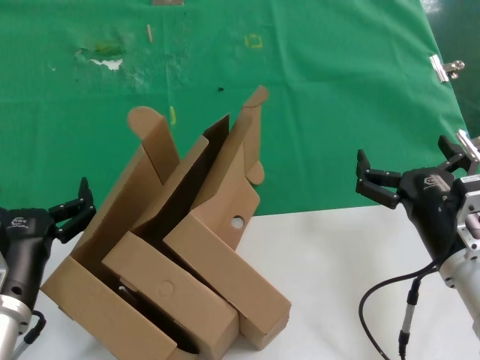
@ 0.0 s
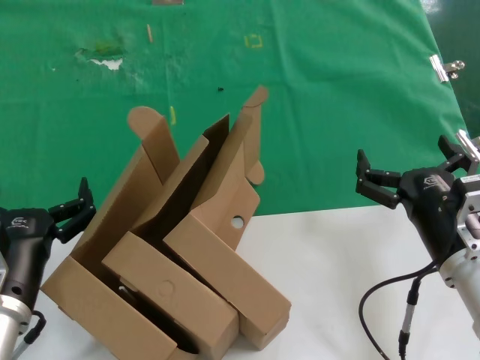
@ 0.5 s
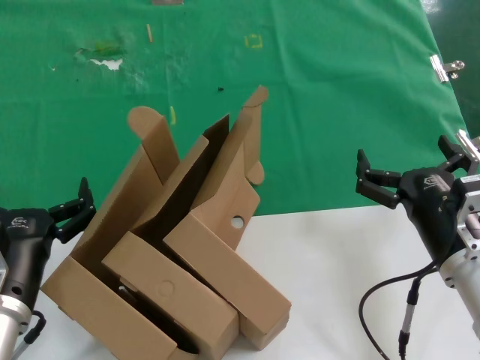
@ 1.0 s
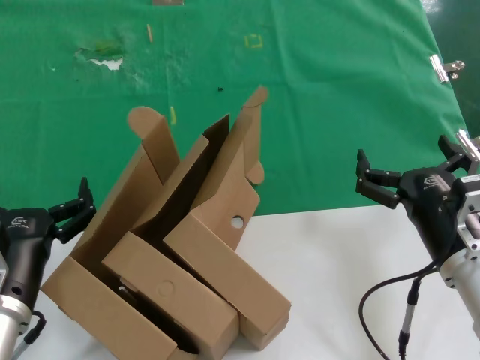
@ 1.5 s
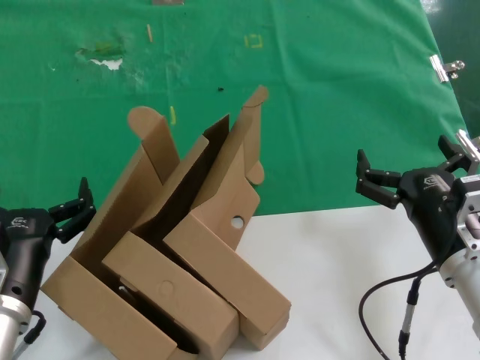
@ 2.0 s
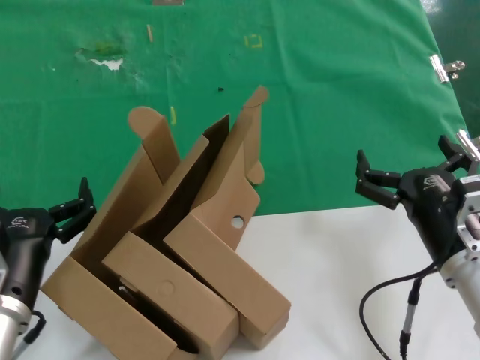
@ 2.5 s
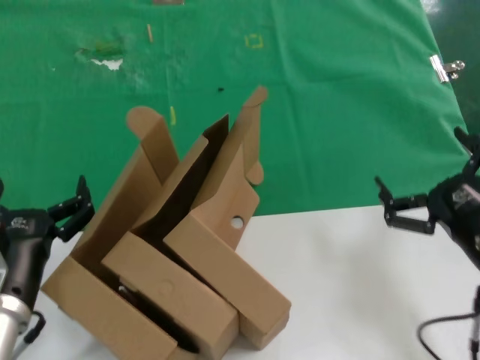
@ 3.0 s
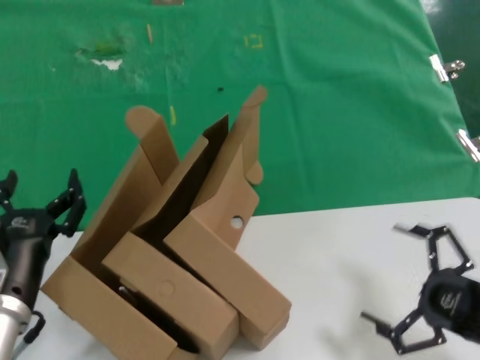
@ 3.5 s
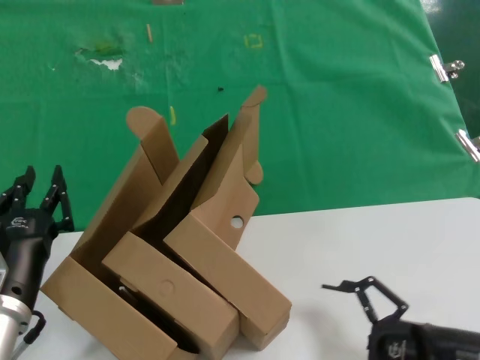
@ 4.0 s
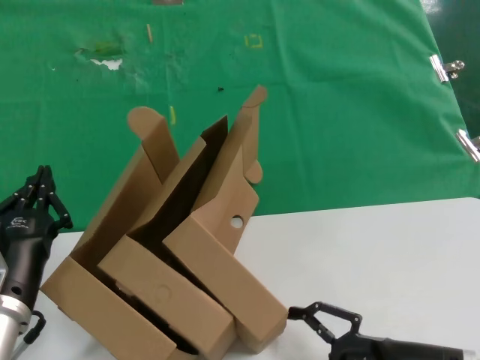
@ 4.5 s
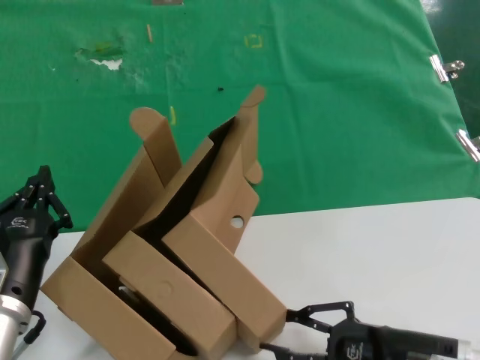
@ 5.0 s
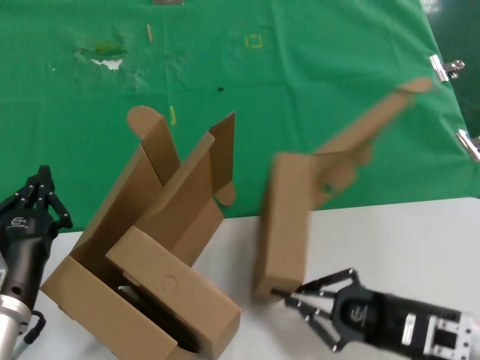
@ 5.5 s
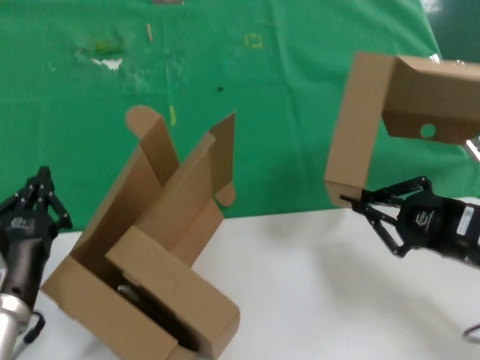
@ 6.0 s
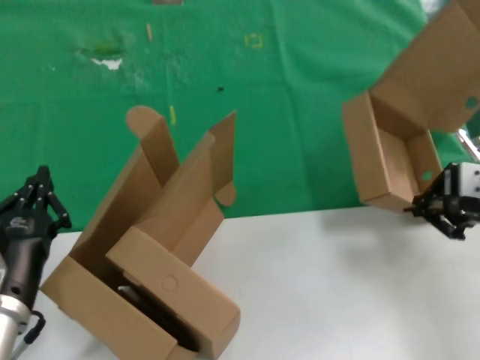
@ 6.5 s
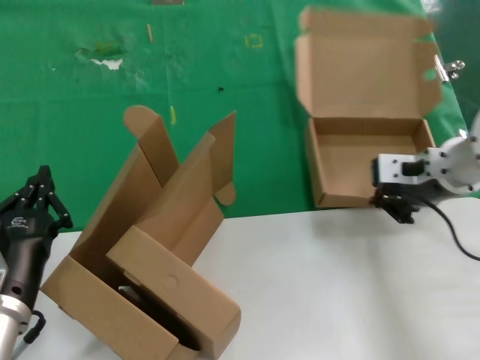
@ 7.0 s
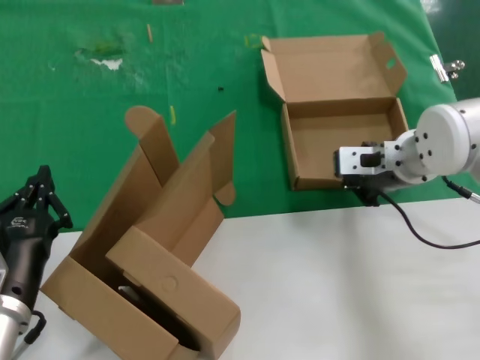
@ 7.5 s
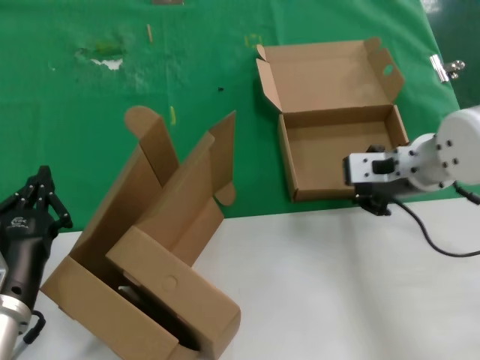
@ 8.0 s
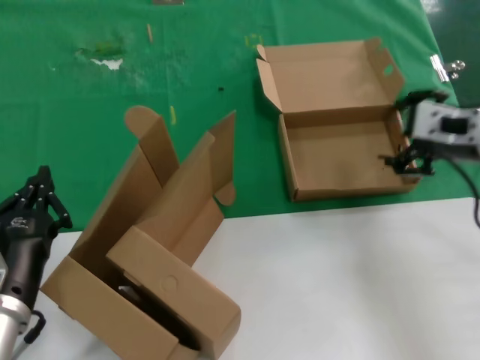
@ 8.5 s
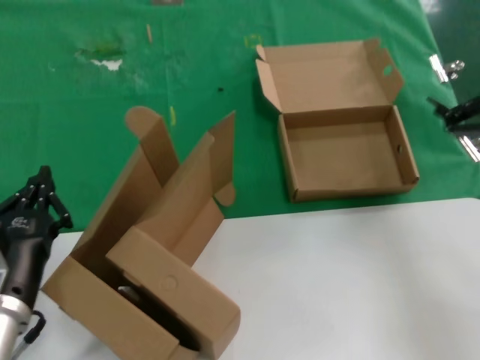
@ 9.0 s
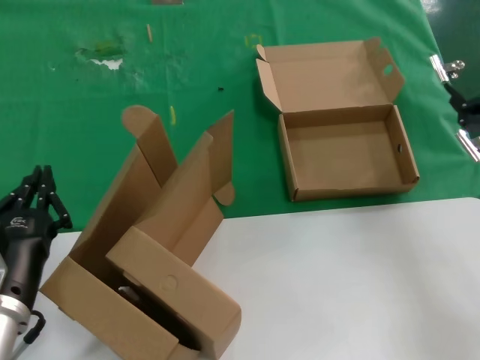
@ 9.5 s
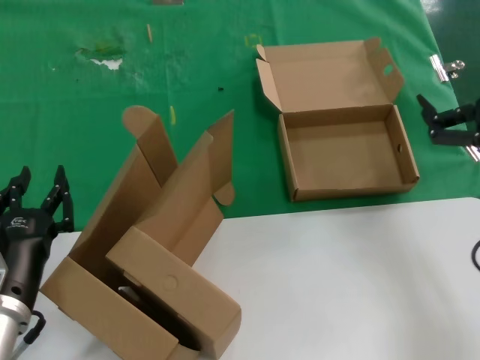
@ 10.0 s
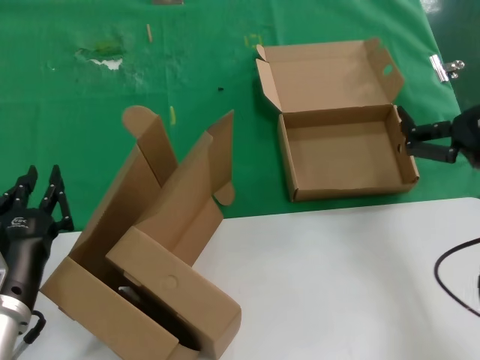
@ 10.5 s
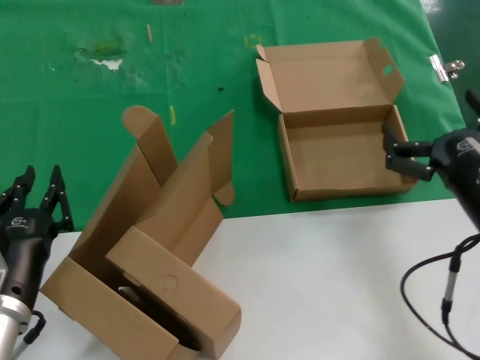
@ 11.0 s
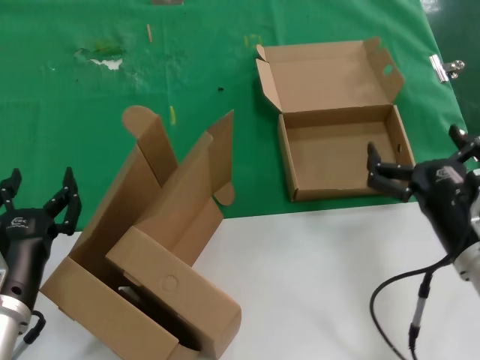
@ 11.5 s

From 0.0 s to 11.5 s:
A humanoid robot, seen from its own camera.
Task of the whole recording: pick up the paper box and put it at the back.
Step, from 0.0 s to 5.5 s: Grasp the paper box.
Step, from 6.0 s to 7.5 s: Place the paper box on the table.
From 0.0 s to 2.0 s: Both hands stay put.
From 2.0 s to 4.0 s: The right hand travels to the right, backward and downward by about 10 cm.
From 4.0 s to 6.0 s: The right hand goes roughly 10 cm upward and forward.
From 6.0 s to 7.5 s: The right hand shifts approximately 20 cm forward and to the left.
From 7.5 s to 9.5 s: The right hand goes about 25 cm backward, to the right and upward.
From 9.5 s to 11.5 s: The right hand heads downward and to the left, covering about 20 cm.
